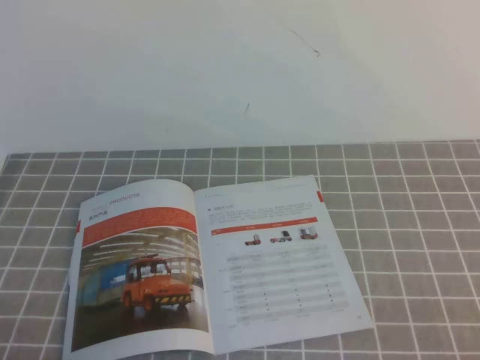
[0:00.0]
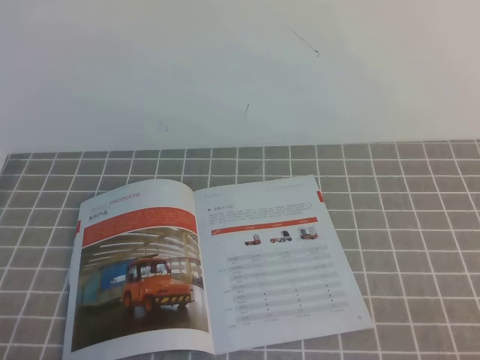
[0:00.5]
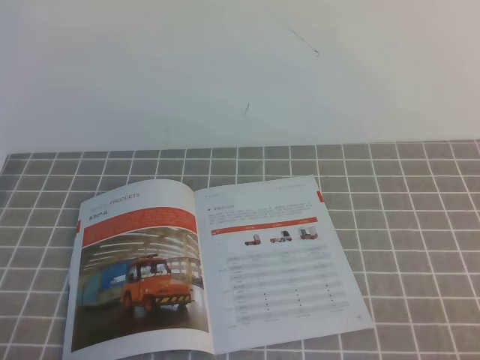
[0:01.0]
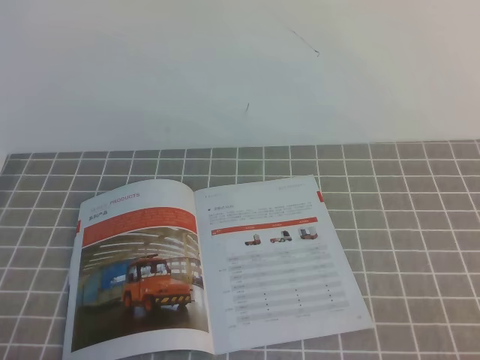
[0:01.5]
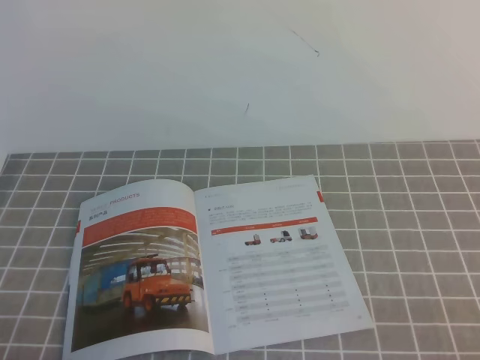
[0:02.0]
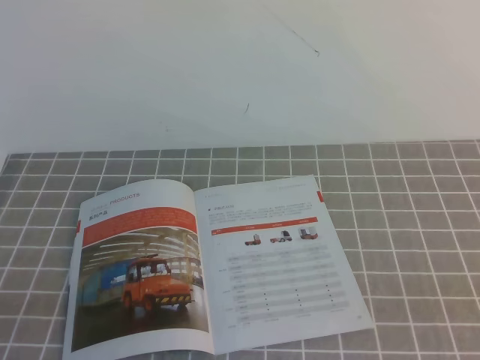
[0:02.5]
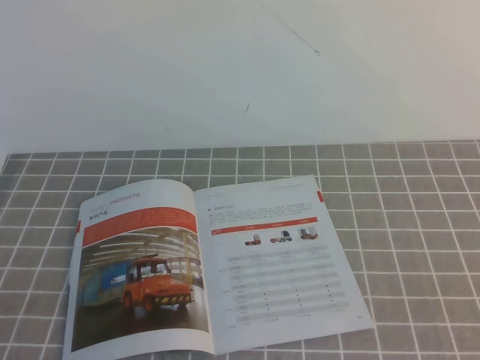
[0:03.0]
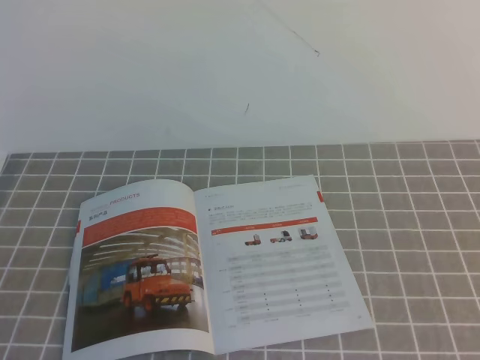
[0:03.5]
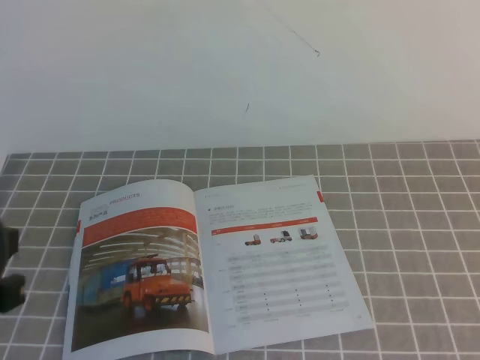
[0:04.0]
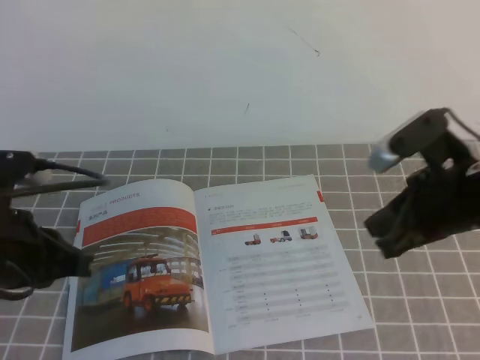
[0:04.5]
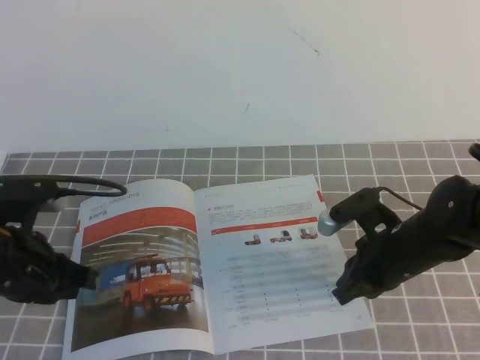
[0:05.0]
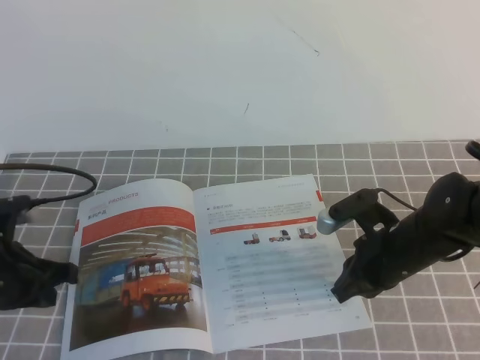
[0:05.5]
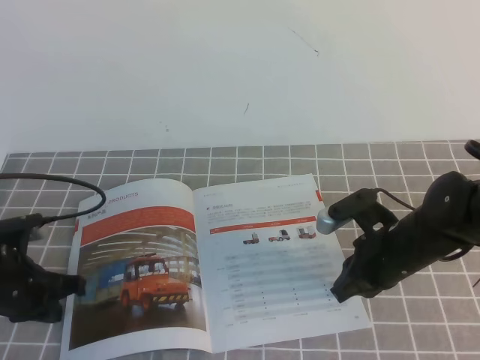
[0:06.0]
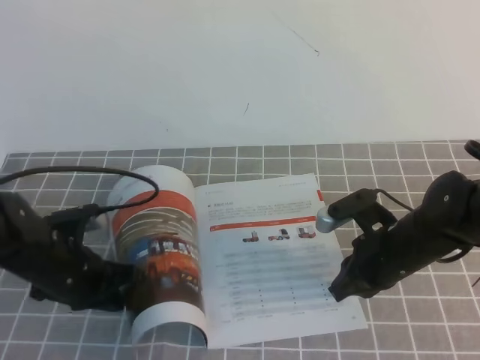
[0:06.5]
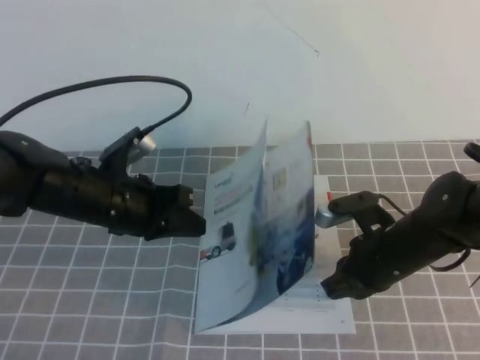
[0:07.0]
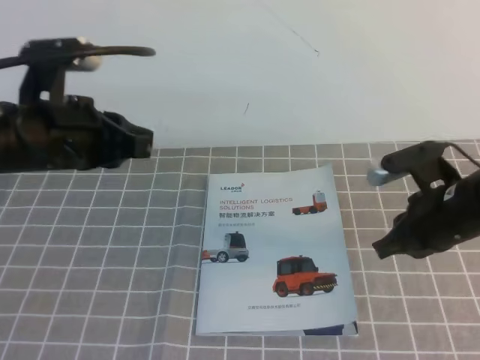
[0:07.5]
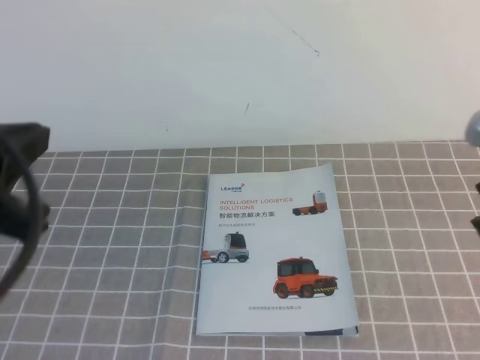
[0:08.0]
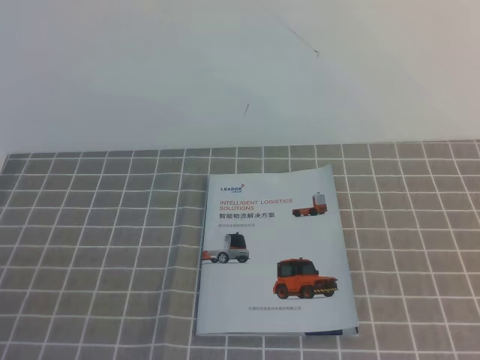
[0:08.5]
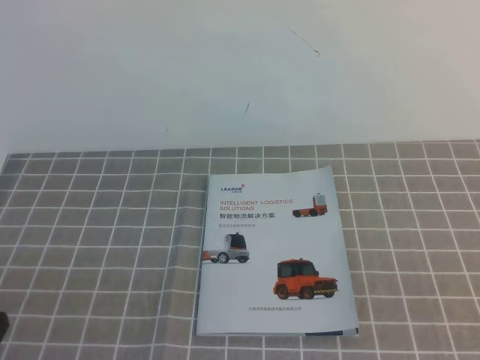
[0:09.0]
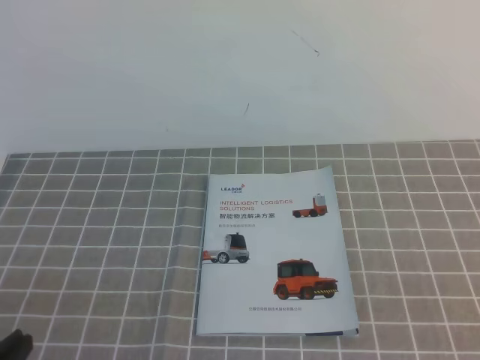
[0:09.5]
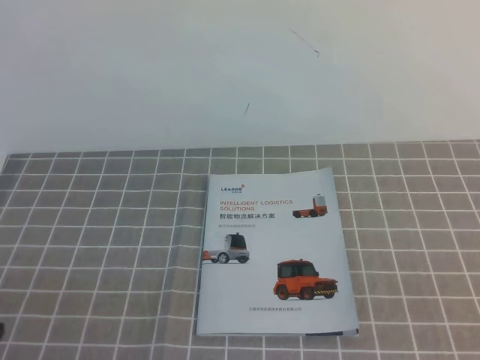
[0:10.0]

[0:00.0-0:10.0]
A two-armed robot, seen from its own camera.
Task of the whole recording: on the grey tablecloth, hold the book with one hand and close it with the other.
0:00.0 to 0:02.0: The two grippers keep their place.
0:02.0 to 0:04.0: The left gripper moves upward, roughly 15 cm.
0:04.0 to 0:06.0: The right gripper shifts approximately 35 cm downward, forward and to the left. Meanwhile the left gripper shifts about 25 cm downward and forward.
0:06.0 to 0:08.0: The right gripper moves upward, to the right and backward, roughly 20 cm. The left gripper heads upward and backward, covering about 25 cm.
0:08.0 to 0:10.0: The right gripper is displaced backward and to the right by about 20 cm; the left gripper heads downward and backward, covering some 20 cm.

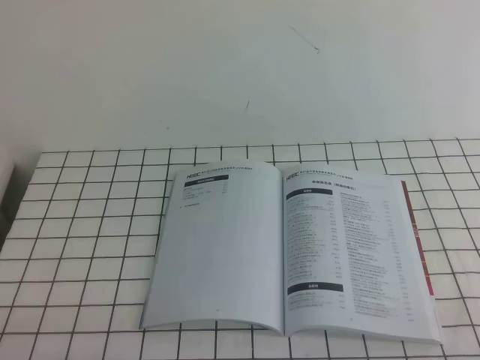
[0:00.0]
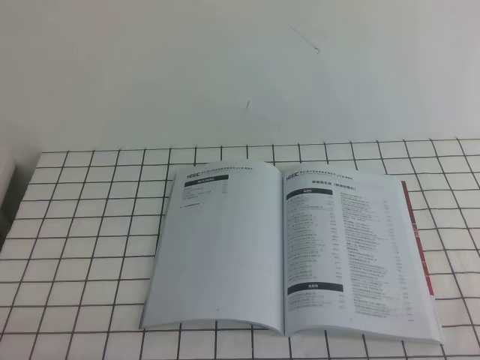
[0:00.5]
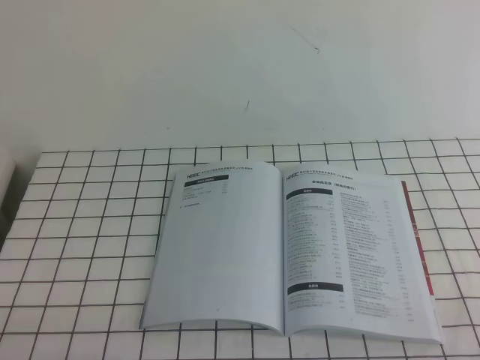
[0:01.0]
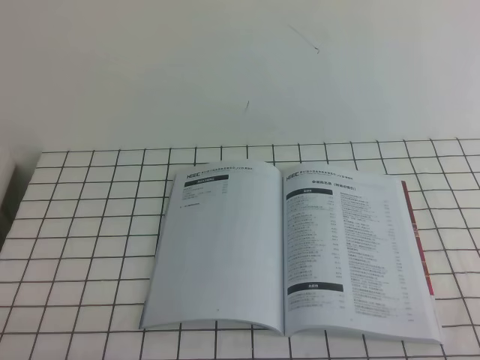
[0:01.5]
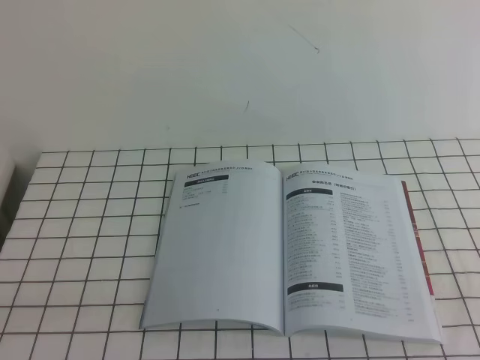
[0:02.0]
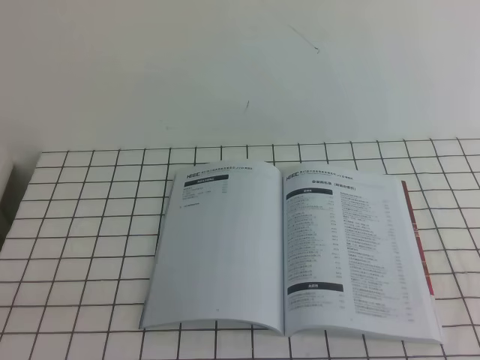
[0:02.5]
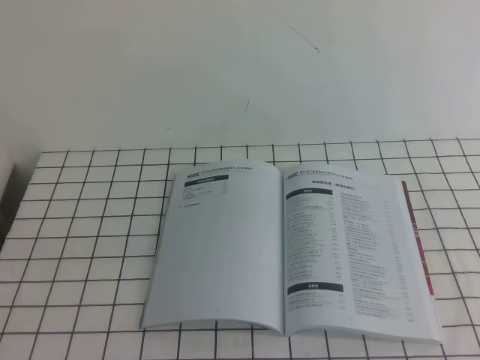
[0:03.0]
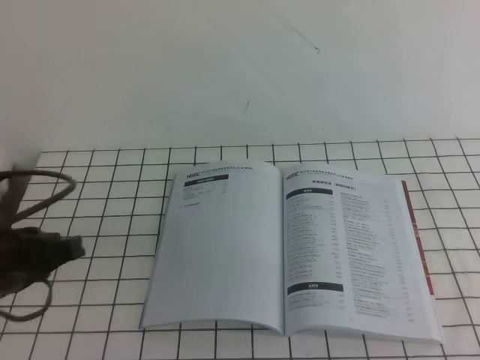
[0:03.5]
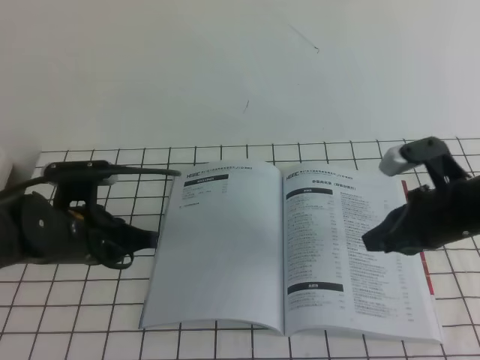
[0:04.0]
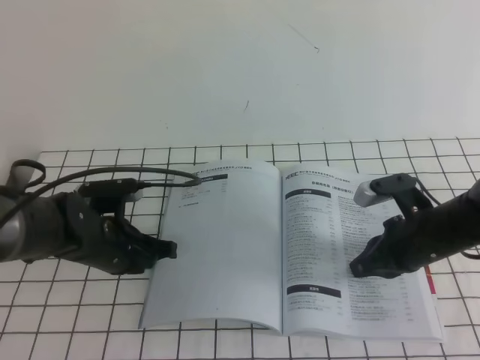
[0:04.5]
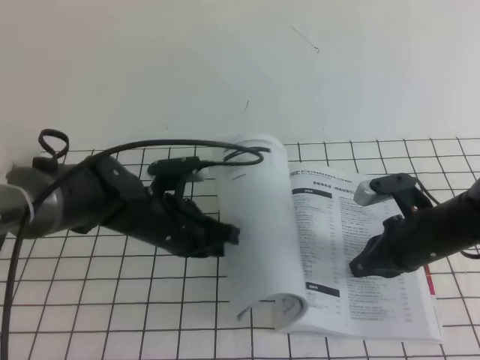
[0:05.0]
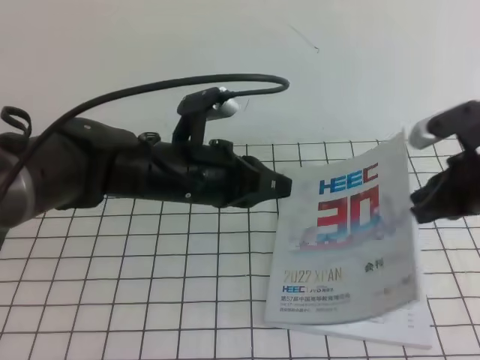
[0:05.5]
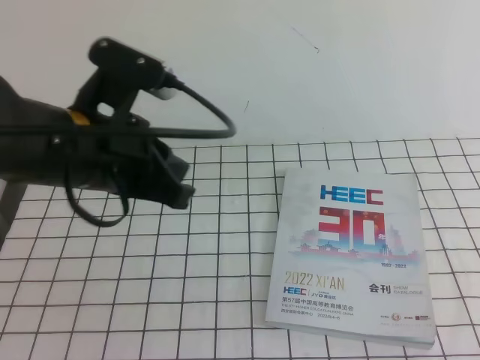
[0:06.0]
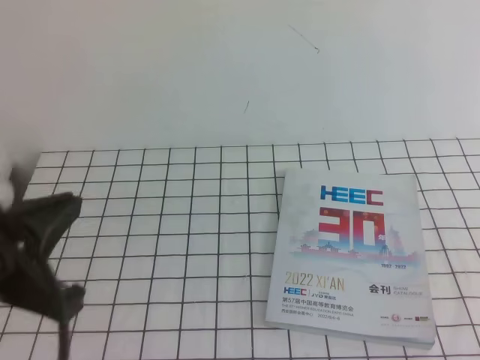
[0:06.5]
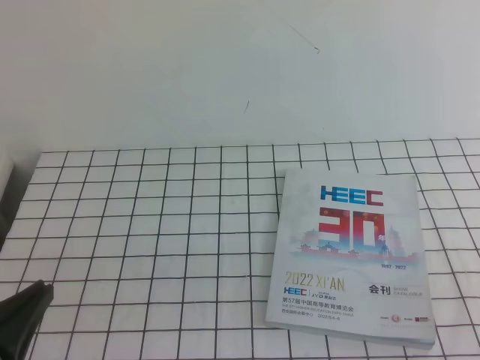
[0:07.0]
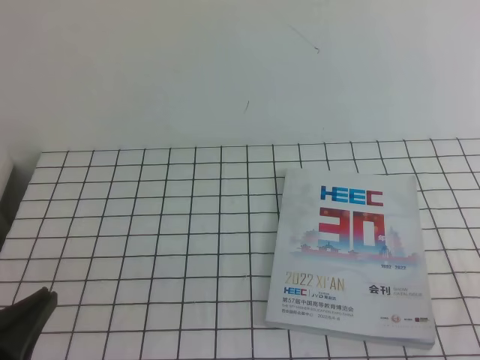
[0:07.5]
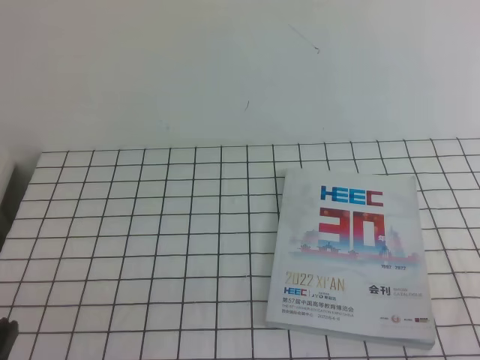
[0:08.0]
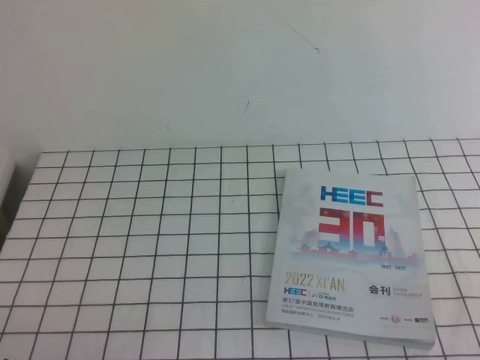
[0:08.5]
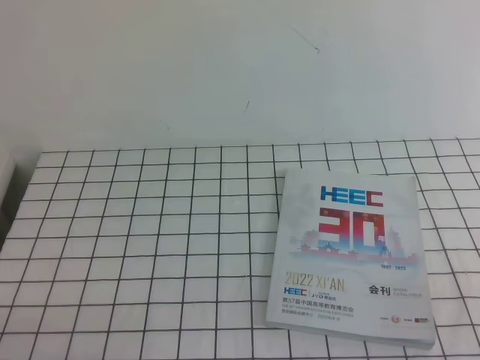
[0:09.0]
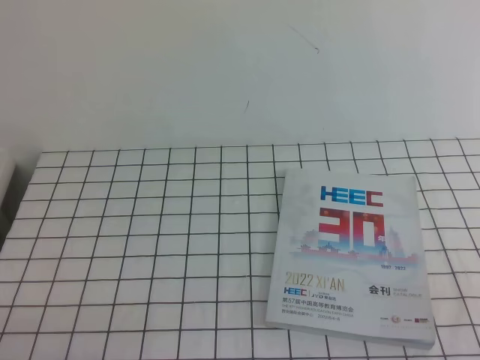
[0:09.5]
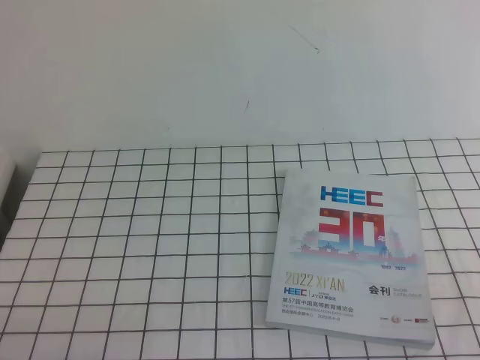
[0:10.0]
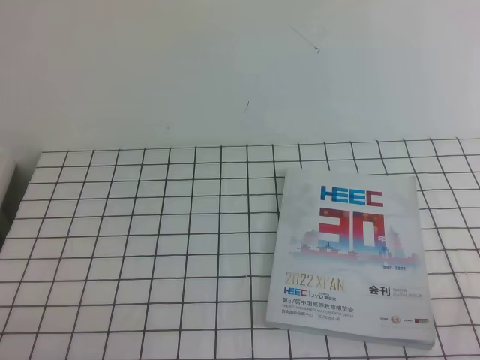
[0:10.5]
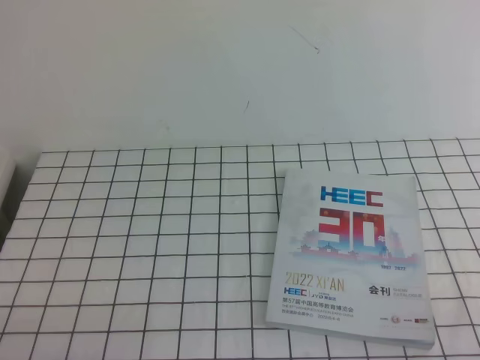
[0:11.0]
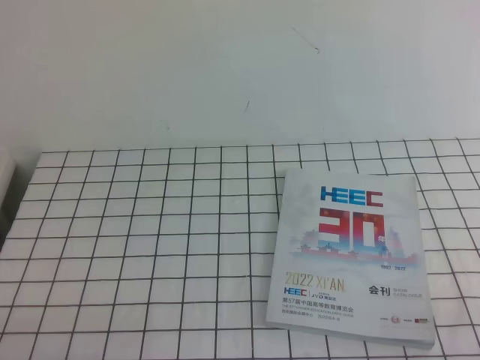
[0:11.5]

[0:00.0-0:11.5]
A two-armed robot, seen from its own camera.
Task of the whole recording: on the white tablecloth, hold the book with one hand and close it with the other.
Step, 0:00.0 to 0:11.5: Close the open book.
0:02.0 to 0:04.0: Both grippers move forward, about 25 cm.
0:04.0 to 0:06.0: The left gripper is displaced upward and to the right by approximately 15 cm. Meanwhile the right gripper goes about 20 cm upward, backward and to the right.
0:06.0 to 0:07.5: The left gripper moves backward, to the left and downward, approximately 20 cm, while the right gripper heads backward and downward, covering roughly 20 cm.
0:07.5 to 0:09.5: The left gripper goes some 10 cm downward.
